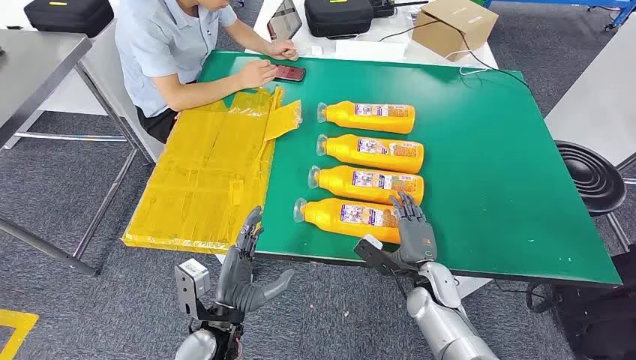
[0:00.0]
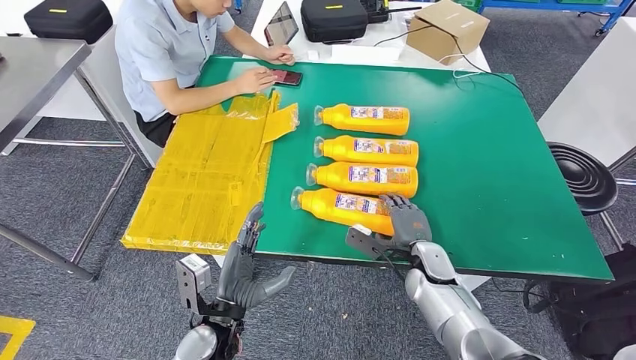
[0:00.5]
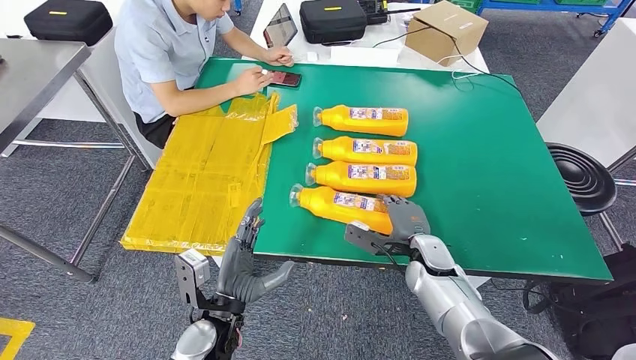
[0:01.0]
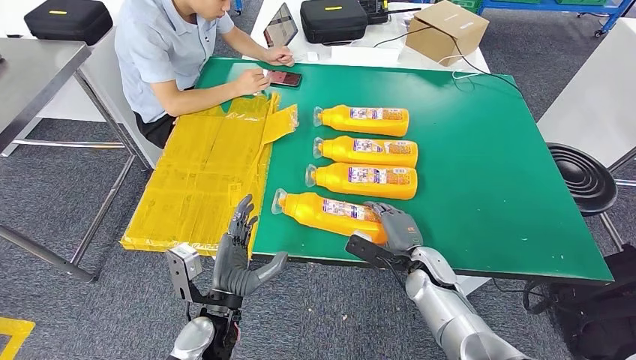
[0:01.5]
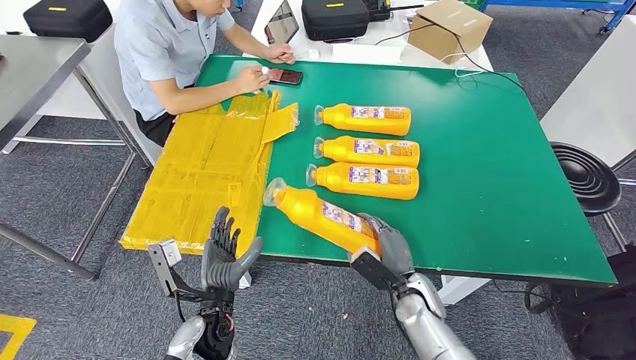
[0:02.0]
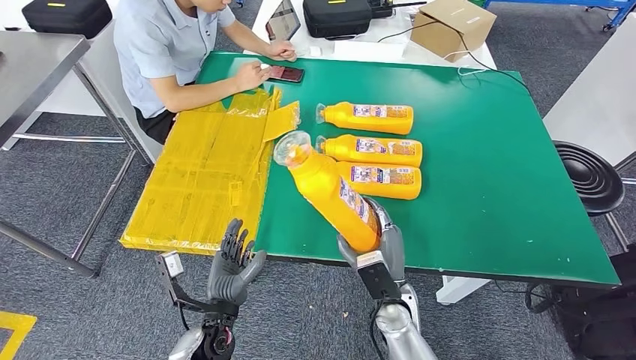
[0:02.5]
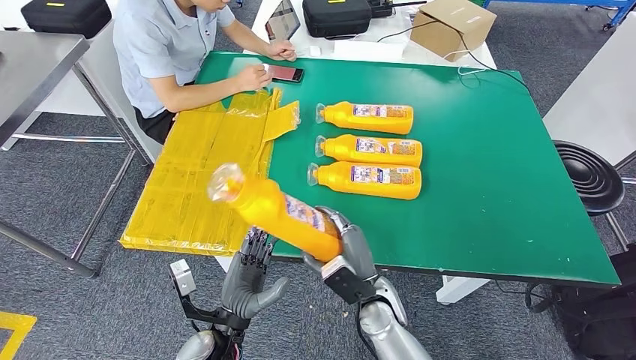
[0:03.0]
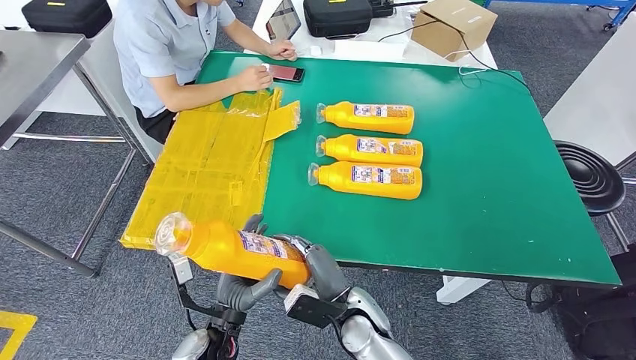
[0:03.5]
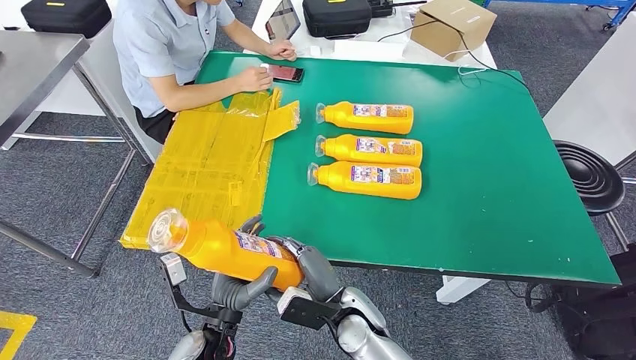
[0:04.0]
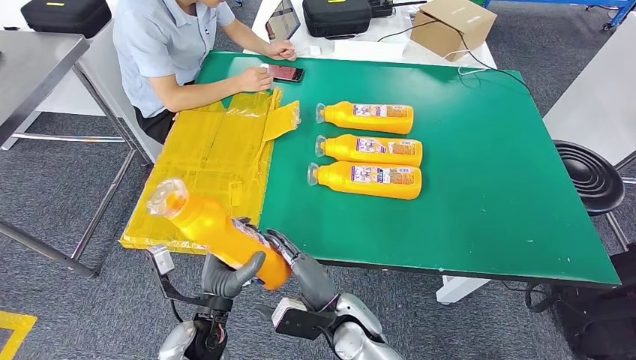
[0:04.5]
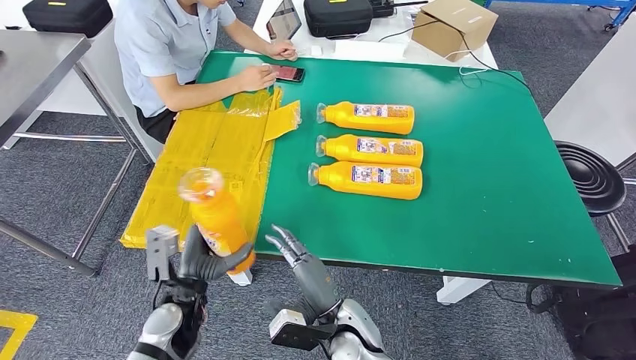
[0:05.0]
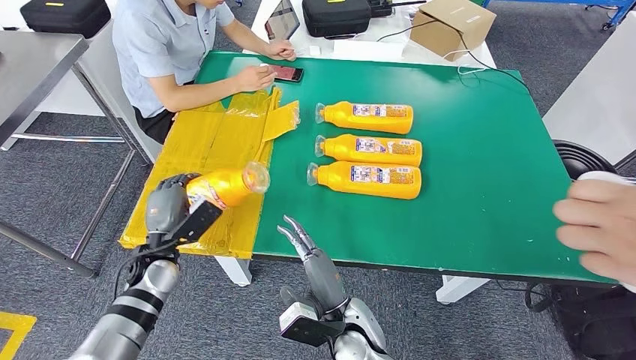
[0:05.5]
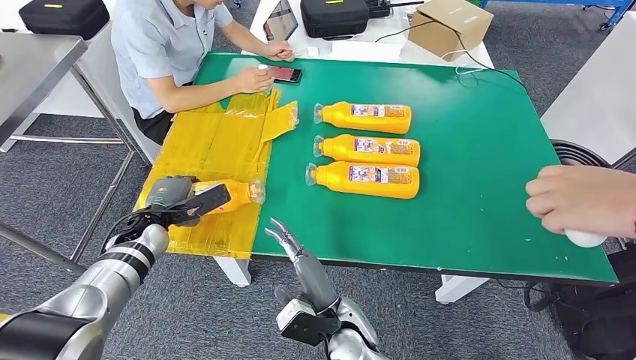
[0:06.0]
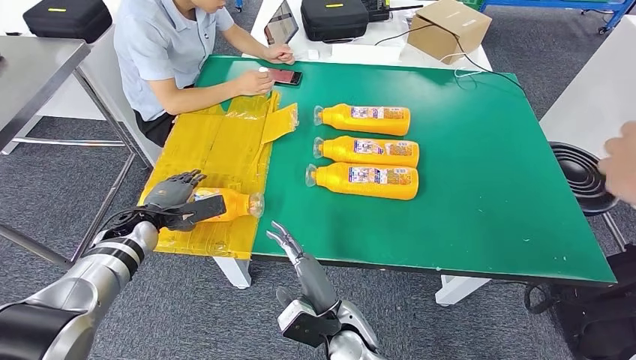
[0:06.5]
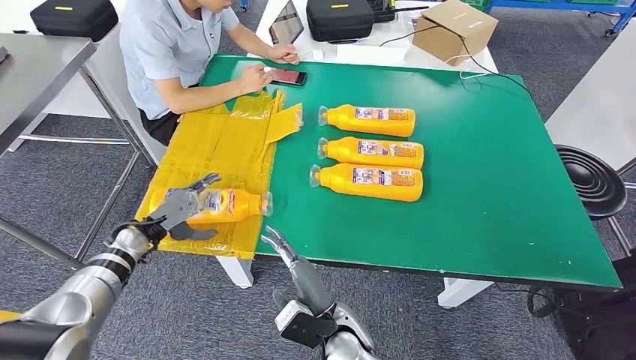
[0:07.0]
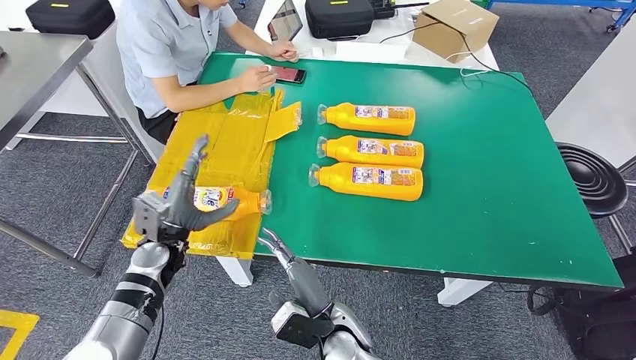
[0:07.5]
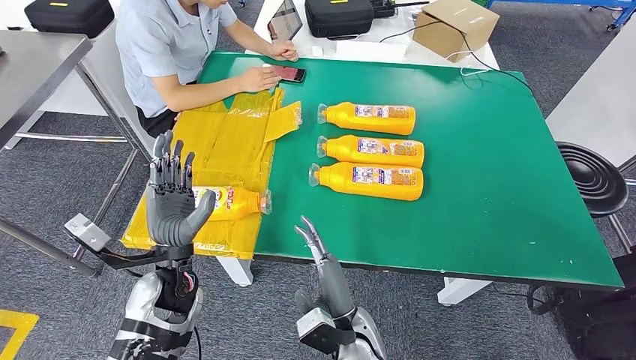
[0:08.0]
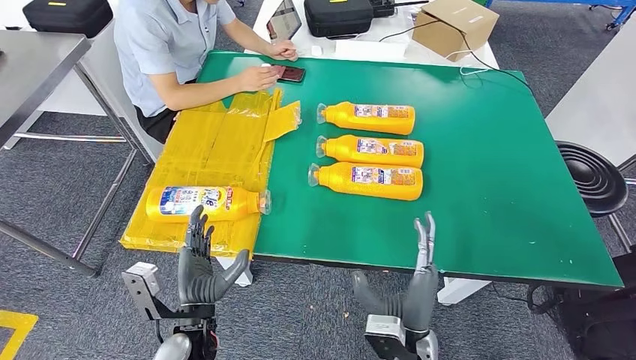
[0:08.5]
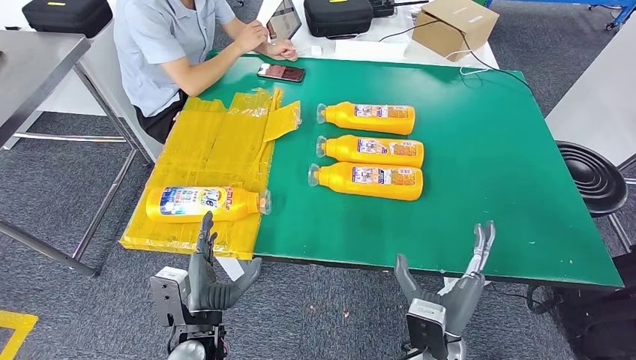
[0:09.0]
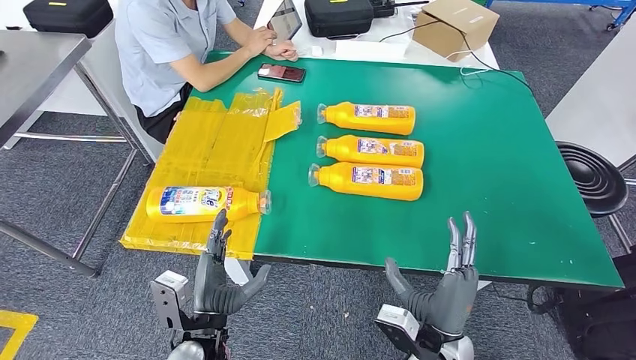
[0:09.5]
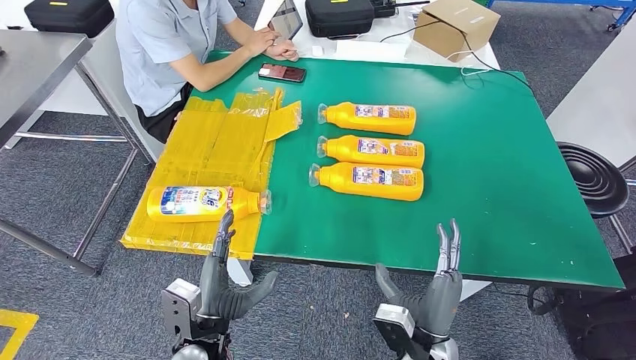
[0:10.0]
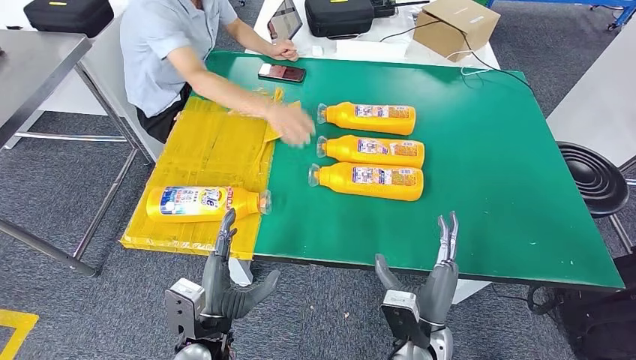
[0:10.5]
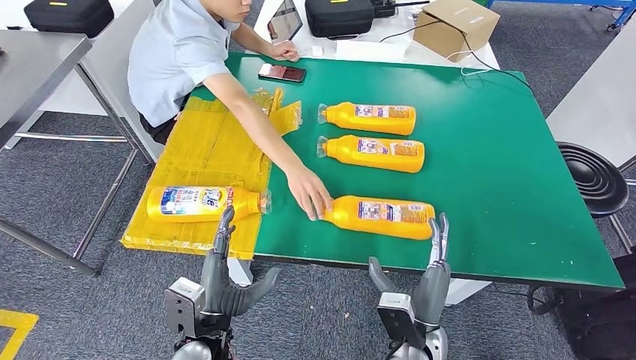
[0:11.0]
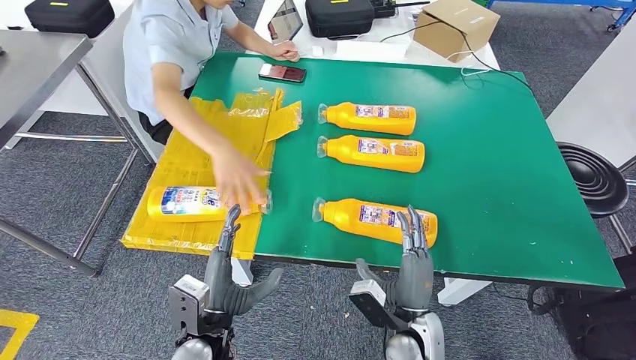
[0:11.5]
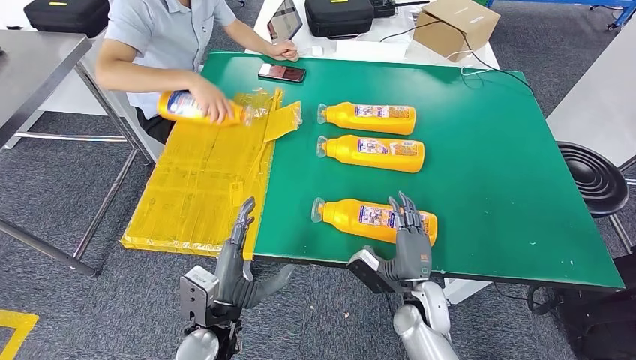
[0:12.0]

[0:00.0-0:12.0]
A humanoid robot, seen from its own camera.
Step, 0:00.0 to 0:03.0: Take the bottle from the table.
Step, 0:04.5 to 0:07.0: Flip the bottle to face forward.
0:08.0 to 0:10.0: The right hand heads to the right, covering about 10 cm. Meanwhile the left hand is displaced backward, downward and to the right by roughly 15 cm.
0:10.0 to 0:12.0: The right hand travels forward by some 10 cm.

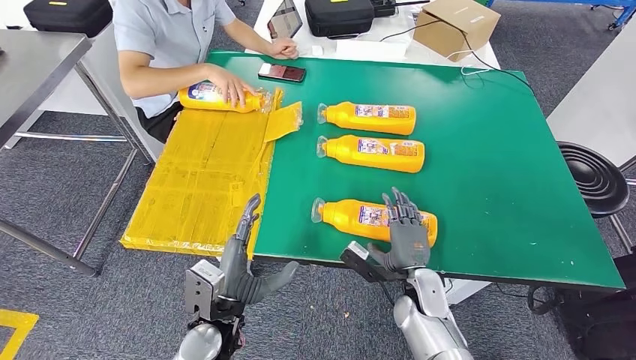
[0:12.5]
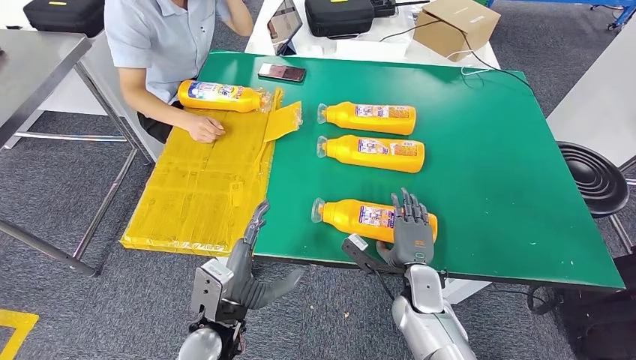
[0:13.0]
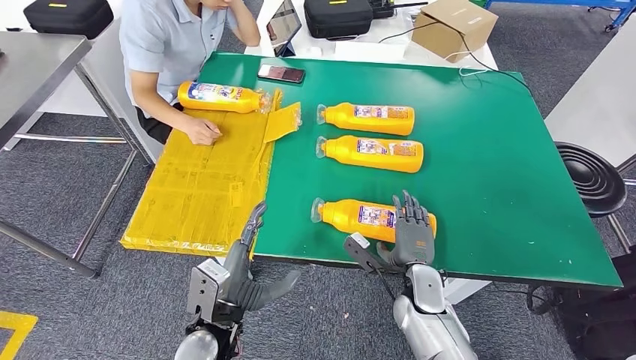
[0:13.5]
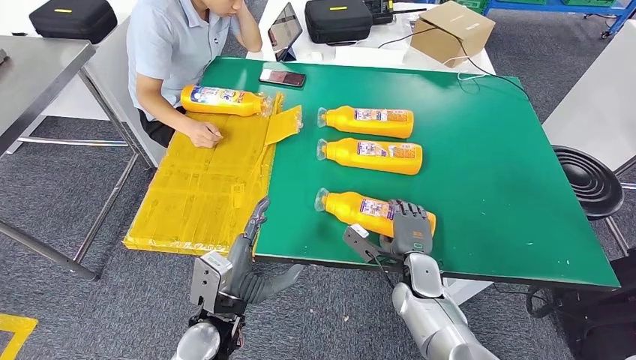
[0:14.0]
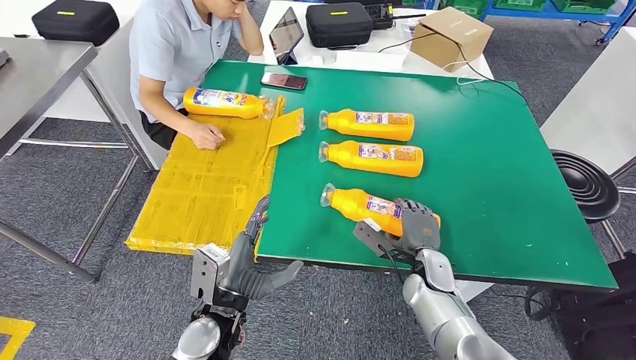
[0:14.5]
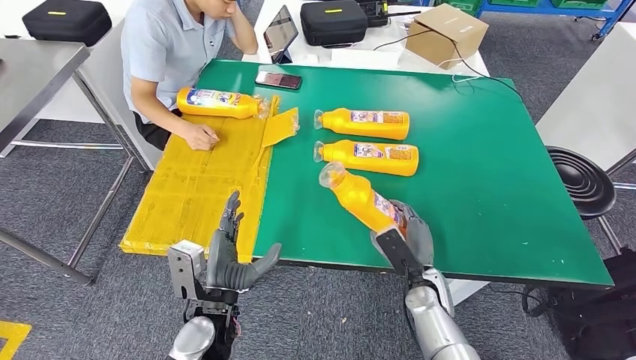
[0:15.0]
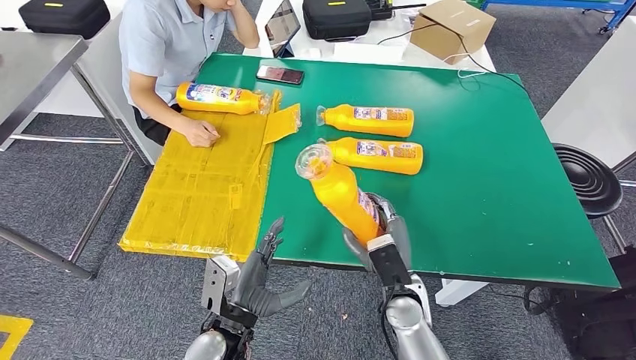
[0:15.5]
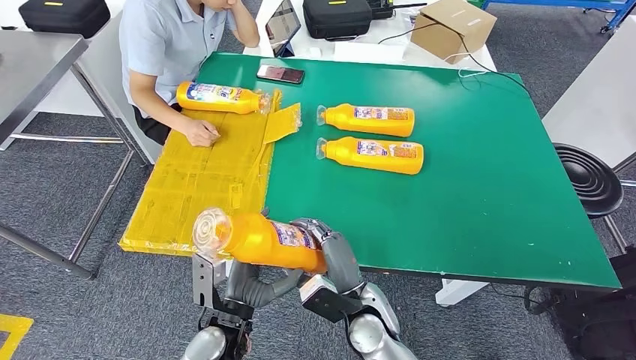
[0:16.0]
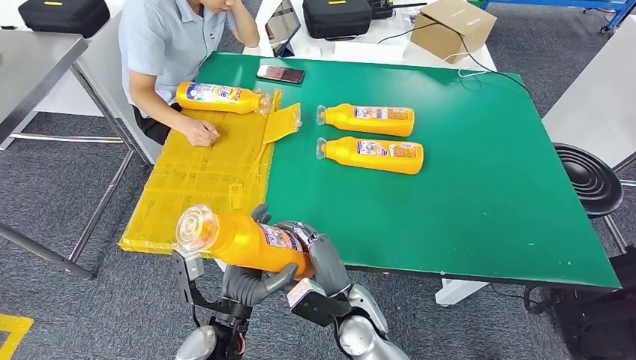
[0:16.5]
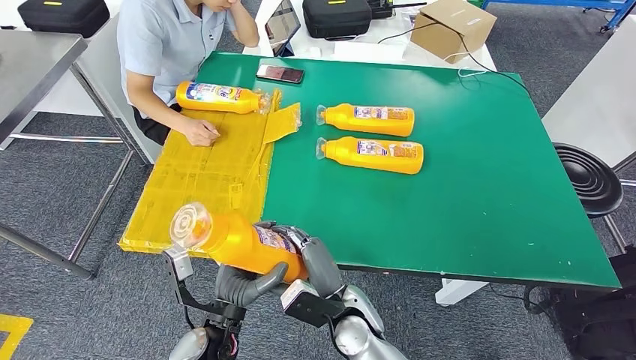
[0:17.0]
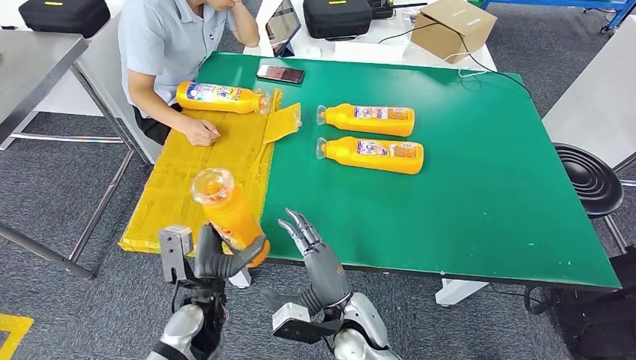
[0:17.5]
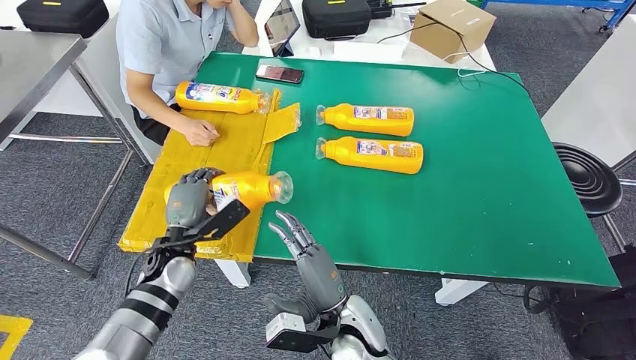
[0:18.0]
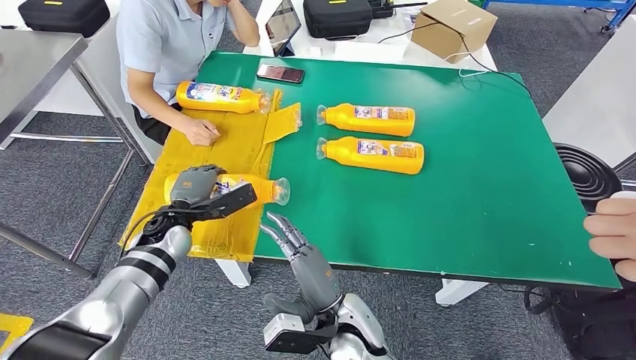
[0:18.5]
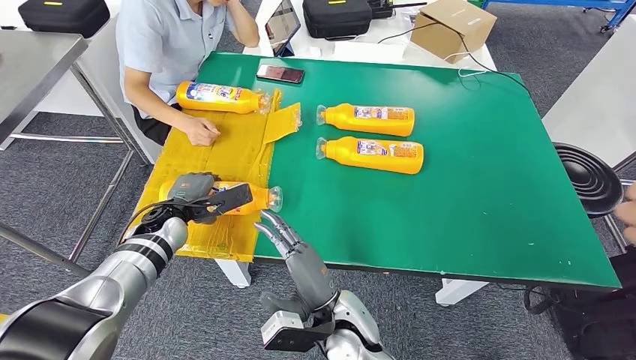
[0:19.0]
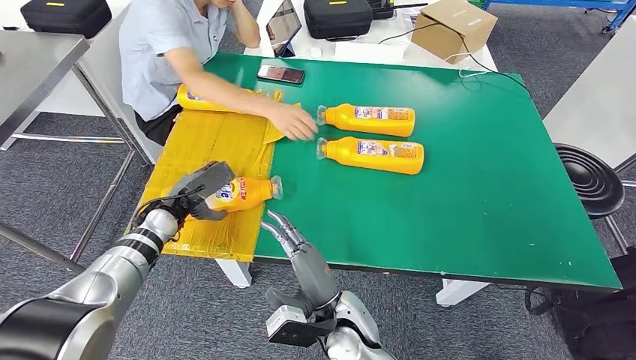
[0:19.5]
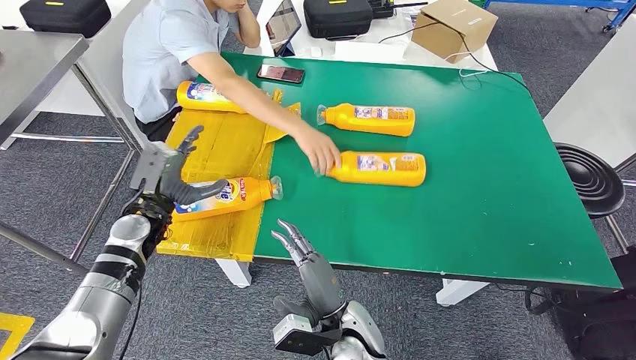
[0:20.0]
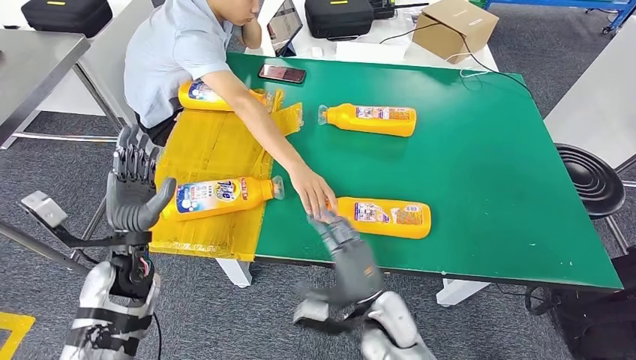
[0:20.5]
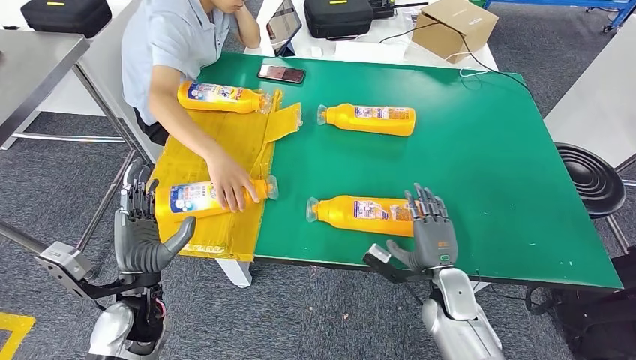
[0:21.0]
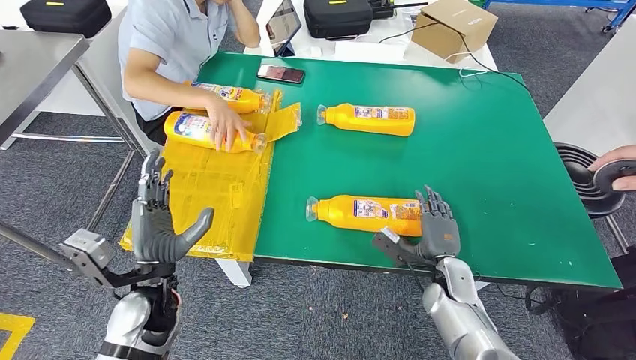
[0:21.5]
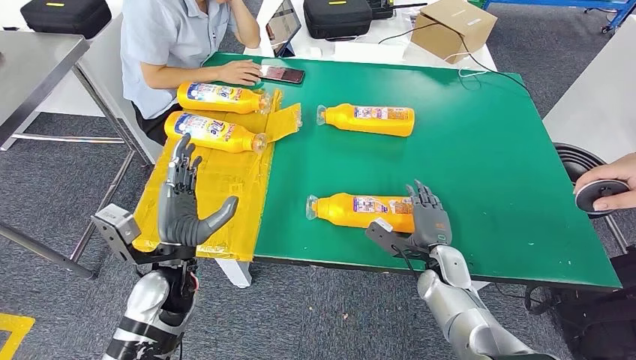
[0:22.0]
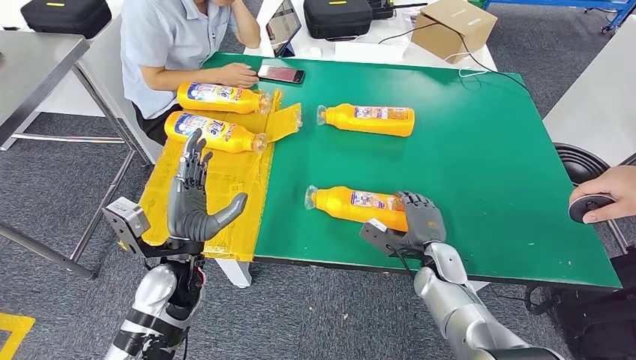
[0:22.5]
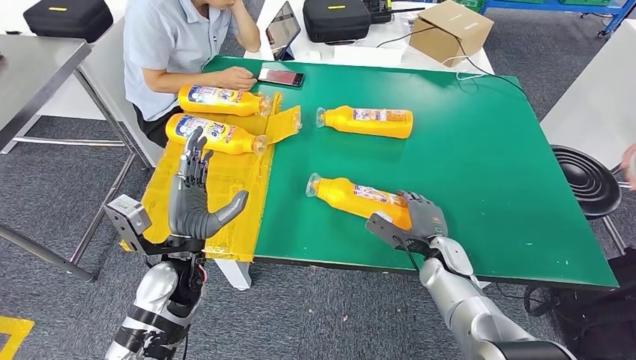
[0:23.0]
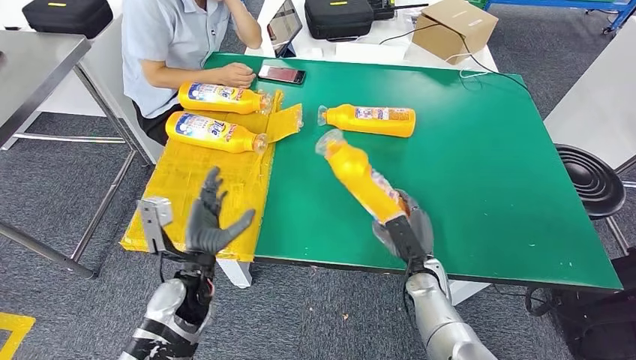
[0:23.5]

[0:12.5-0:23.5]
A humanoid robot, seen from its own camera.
Step, 0:12.5 to 0:15.5: Pick up the bottle from the table.
Step, 0:16.5 to 0:19.5: Flip the bottle to face forward.
0:16.0 to 0:18.0: The left hand moves forward and to the left, some 15 cm.
0:21.5 to 0:23.5: The left hand shifts by some 5 cm.
